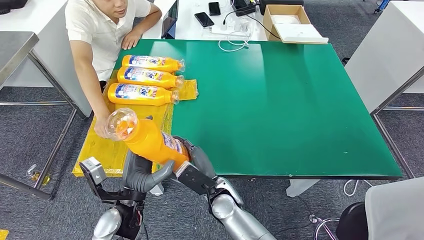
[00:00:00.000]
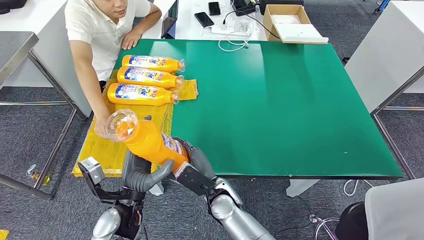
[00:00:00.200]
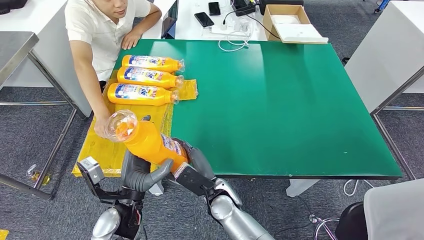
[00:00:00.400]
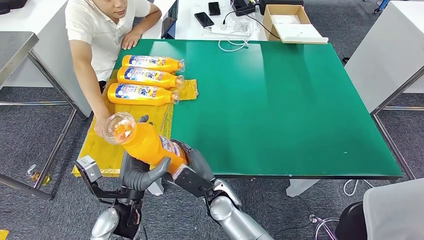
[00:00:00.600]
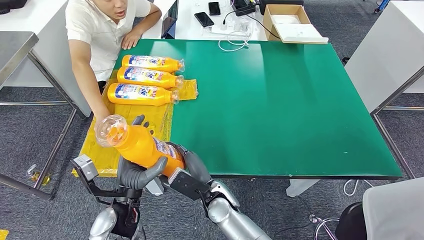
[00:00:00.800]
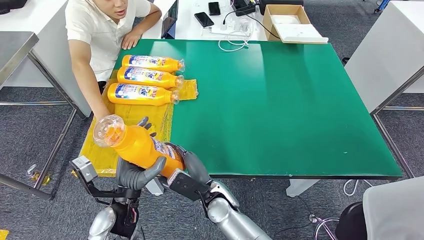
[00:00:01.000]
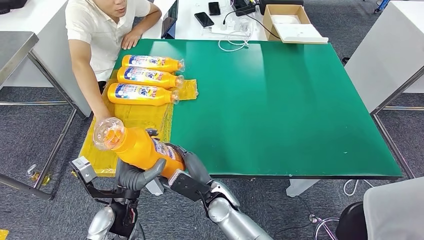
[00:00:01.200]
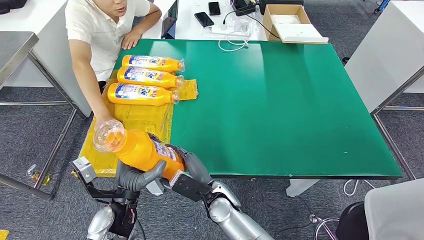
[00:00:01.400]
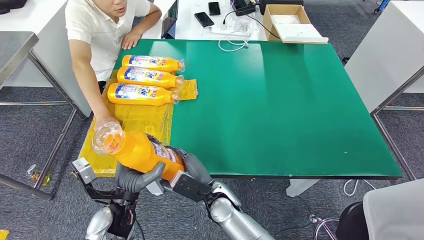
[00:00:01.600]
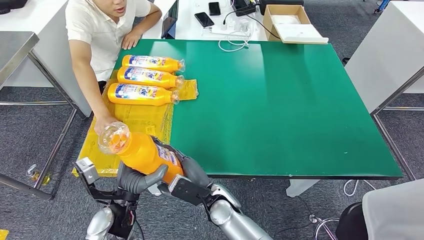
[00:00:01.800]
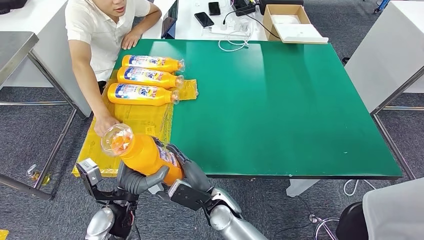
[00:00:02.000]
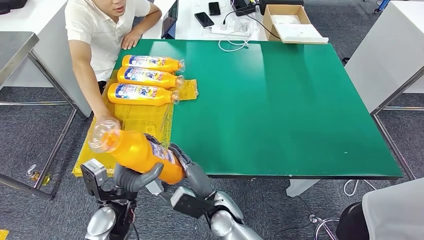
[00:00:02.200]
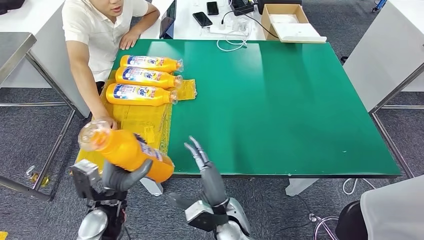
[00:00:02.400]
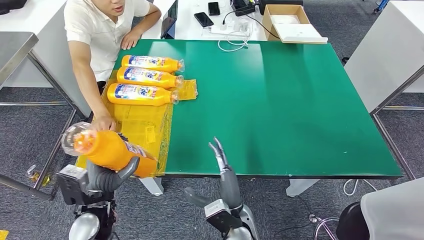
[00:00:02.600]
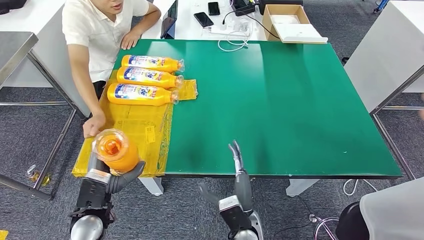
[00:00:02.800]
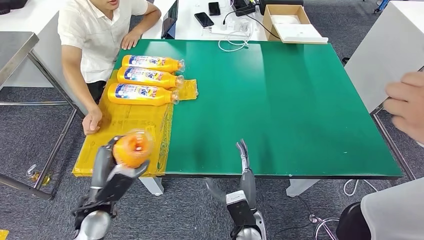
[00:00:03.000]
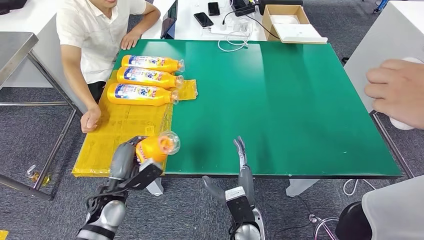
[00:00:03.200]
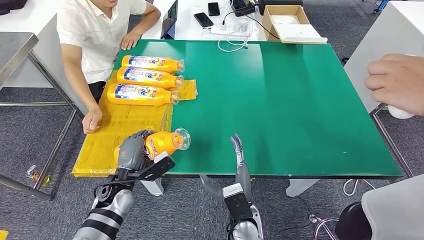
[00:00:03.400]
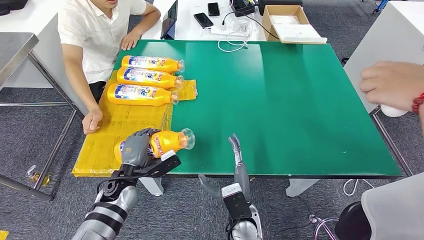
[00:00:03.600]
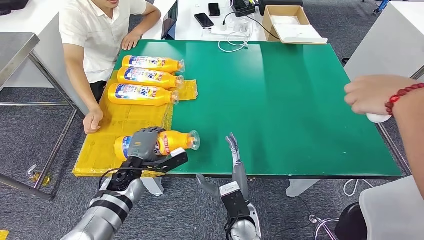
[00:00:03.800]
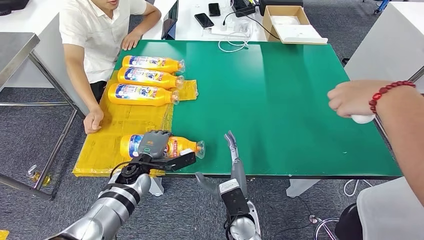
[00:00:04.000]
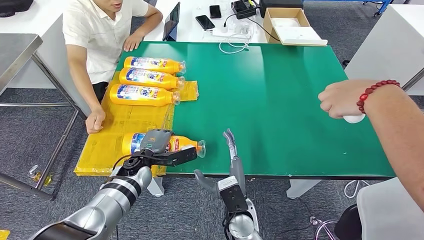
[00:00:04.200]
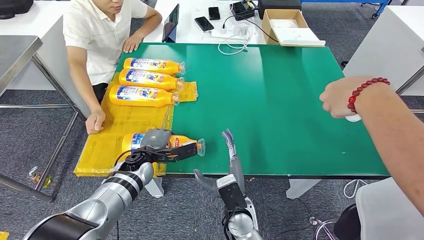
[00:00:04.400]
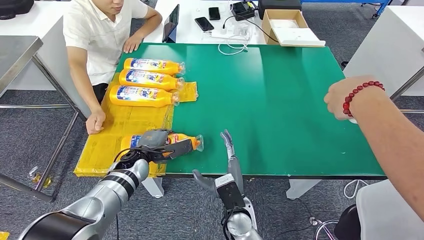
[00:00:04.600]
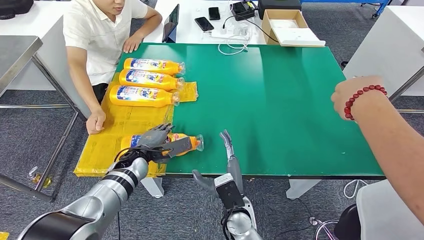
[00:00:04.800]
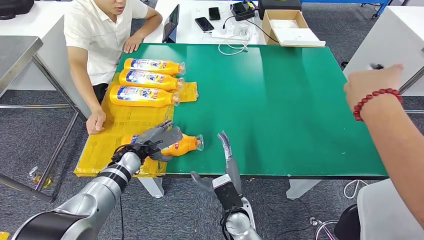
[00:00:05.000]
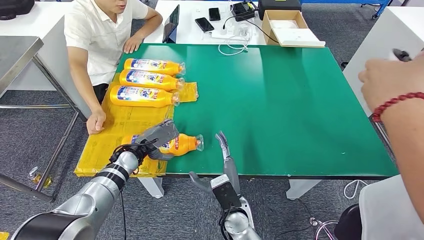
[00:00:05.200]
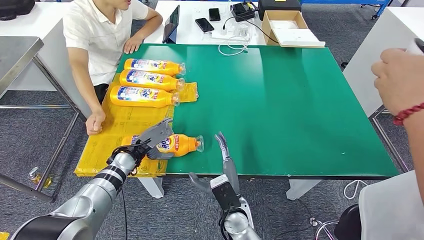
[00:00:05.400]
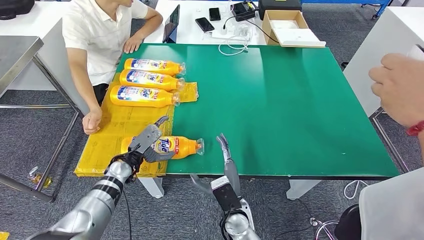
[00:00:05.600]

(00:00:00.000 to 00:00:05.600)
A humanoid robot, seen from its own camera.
Step, 00:00:00.000 - 00:00:05.600: Flip the fast-moving consumer goods bottle to the front side.
00:00:00.000 - 00:00:01.400: The hands move only a little.
00:00:01.400 - 00:00:02.800: The right hand moves backward and to the right, some 10 cm. The left hand shifts some 5 cm to the left.
